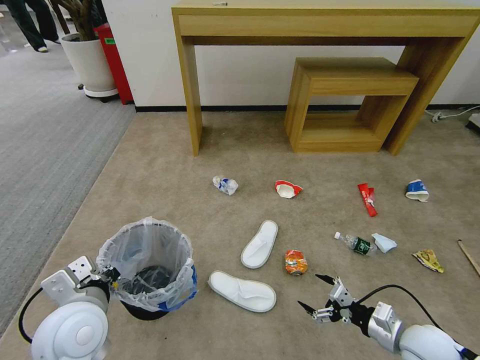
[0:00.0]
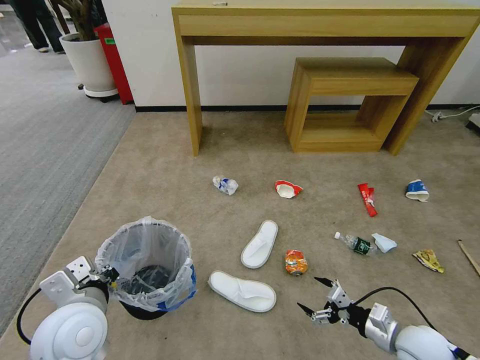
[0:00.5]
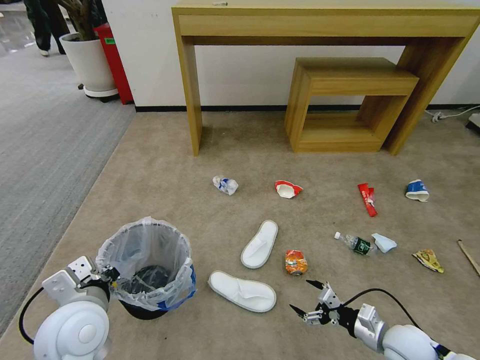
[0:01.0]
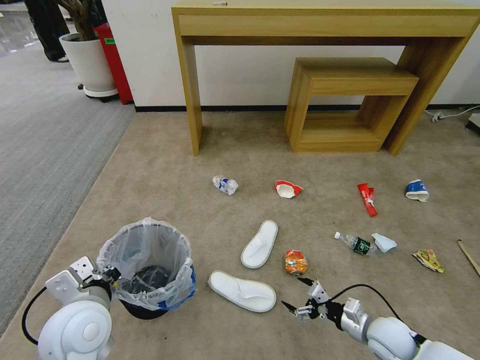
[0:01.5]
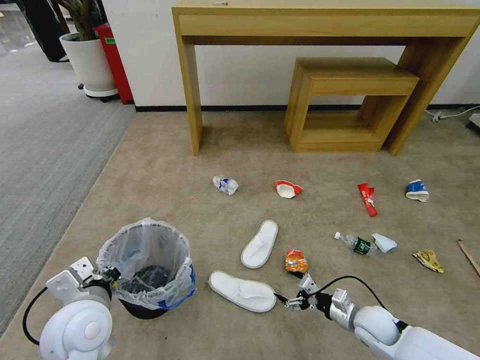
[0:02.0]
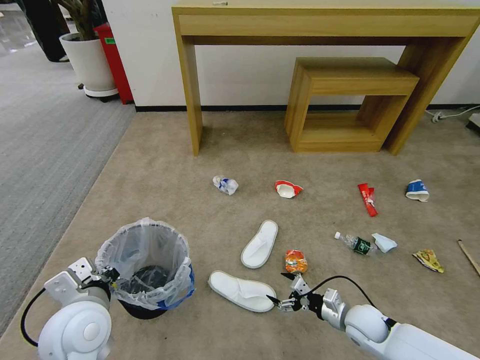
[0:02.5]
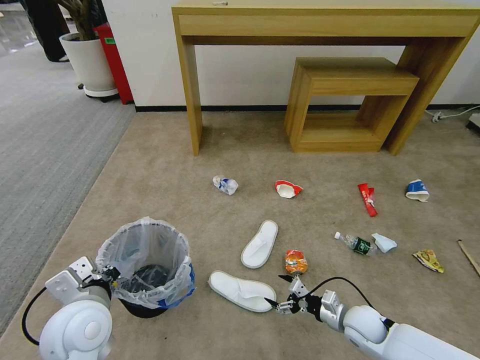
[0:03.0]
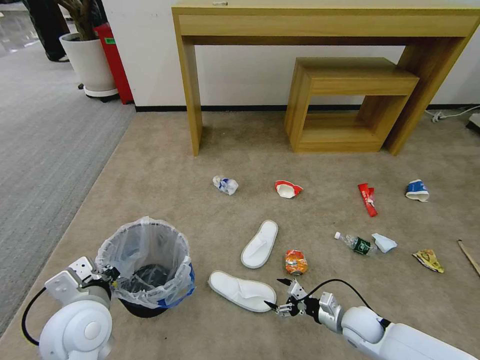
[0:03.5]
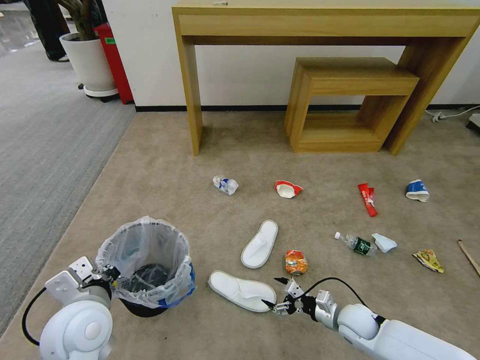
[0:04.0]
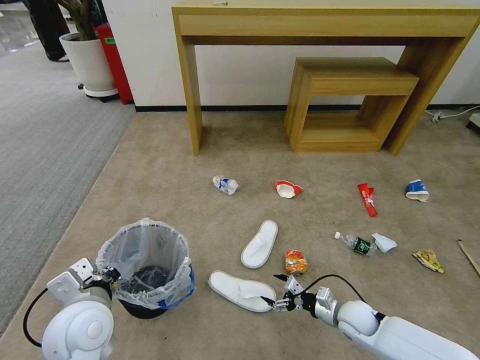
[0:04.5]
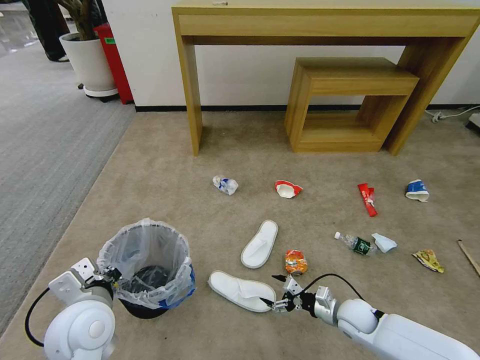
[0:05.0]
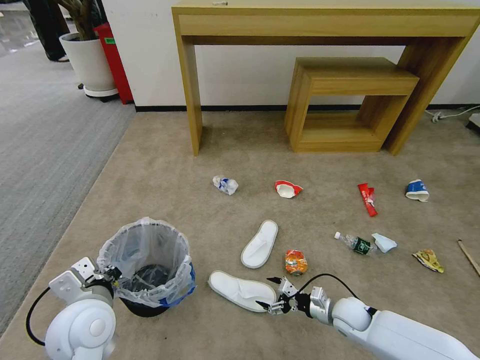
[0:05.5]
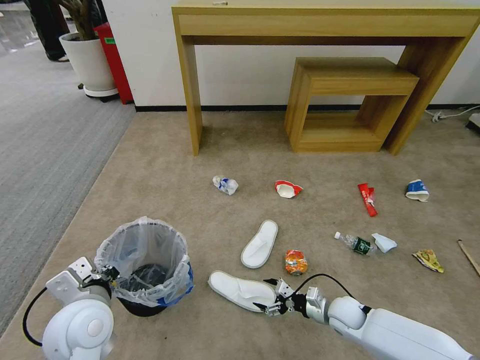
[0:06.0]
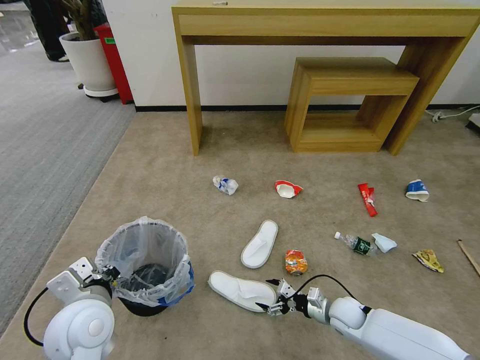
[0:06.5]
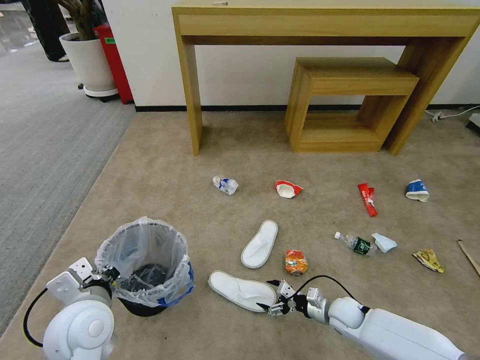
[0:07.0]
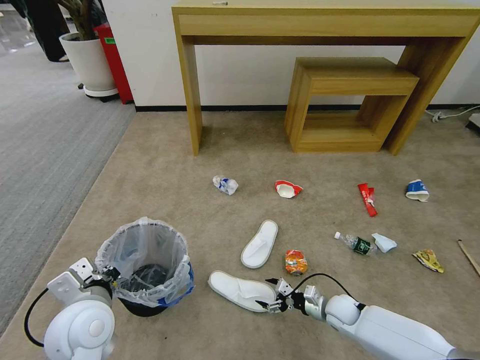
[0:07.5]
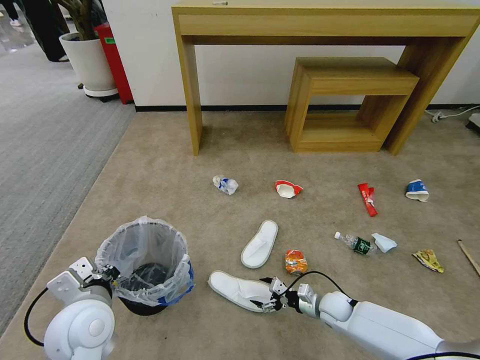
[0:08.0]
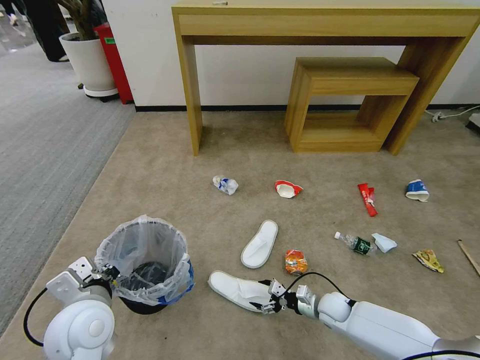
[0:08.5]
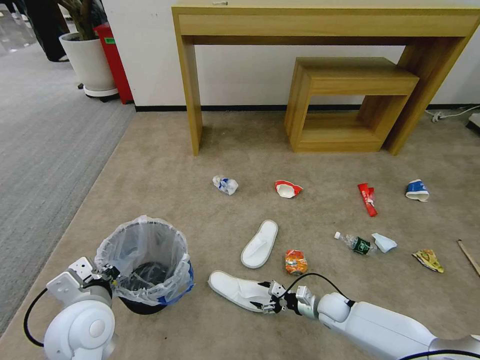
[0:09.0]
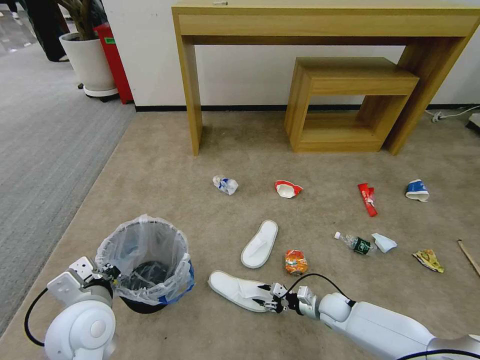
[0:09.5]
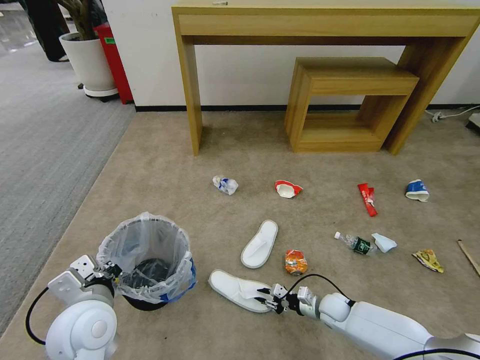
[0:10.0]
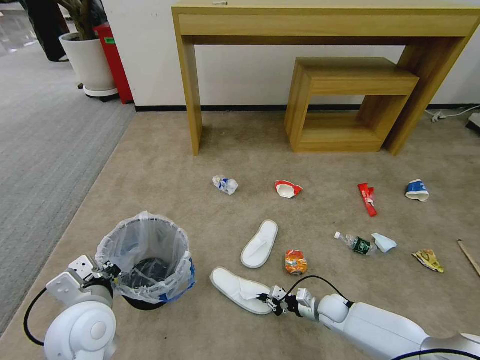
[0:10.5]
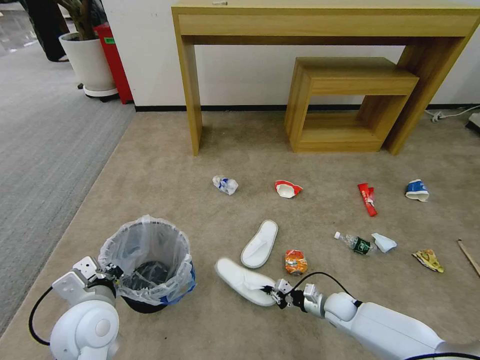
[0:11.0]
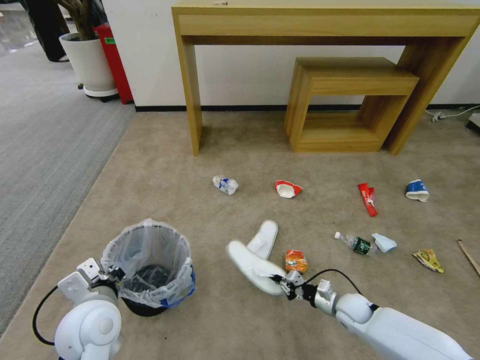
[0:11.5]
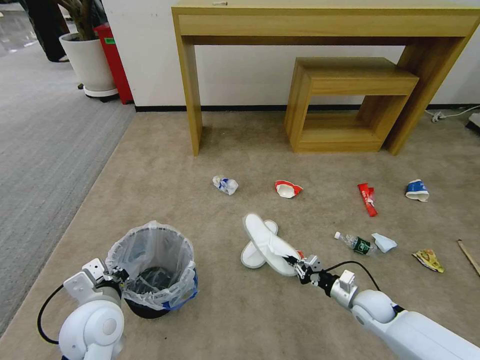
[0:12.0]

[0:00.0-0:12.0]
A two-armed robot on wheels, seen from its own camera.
Task of the whole recording: Pick up the trash bin and place the garbage on the floor into it.
0.0 to 2.0 s: The right gripper heads downward and forward, covering about 10 cm.
2.0 to 4.0 s: The grippers make only small movements.
4.0 to 6.0 s: The grippers stay close to where they were, moving slightly.
6.0 to 8.0 s: The grippers make only small movements.
8.0 to 10.0 s: The right gripper closes.
10.0 to 12.0 s: The right gripper travels upward and to the right by some 10 cm.

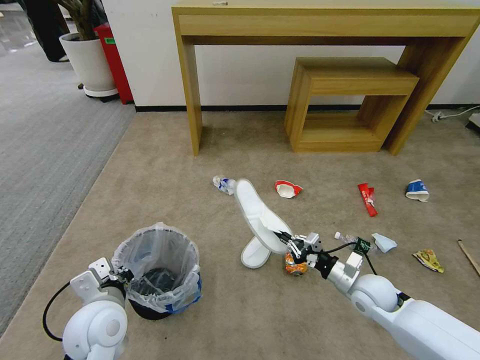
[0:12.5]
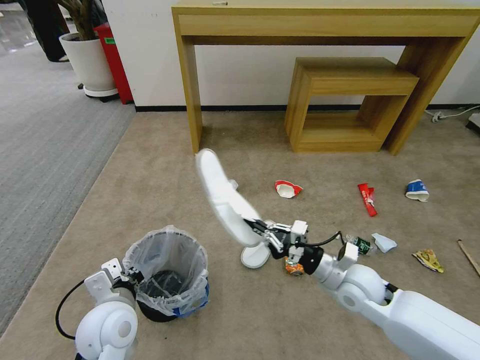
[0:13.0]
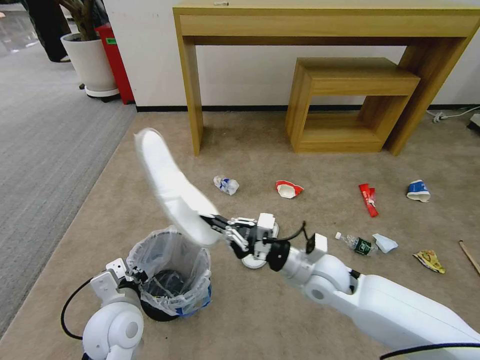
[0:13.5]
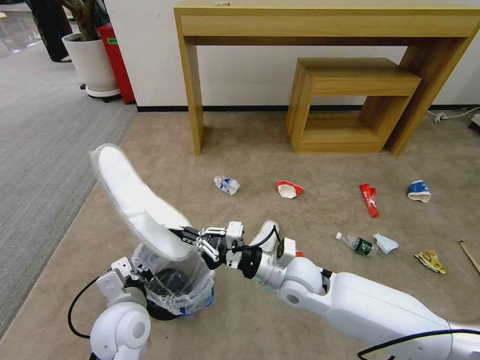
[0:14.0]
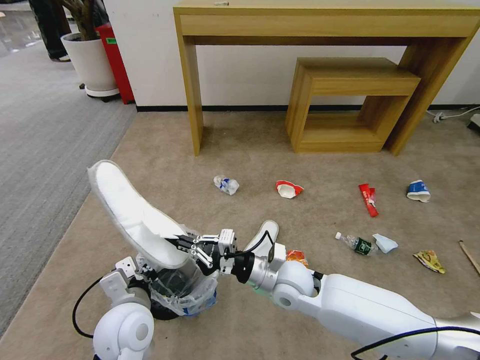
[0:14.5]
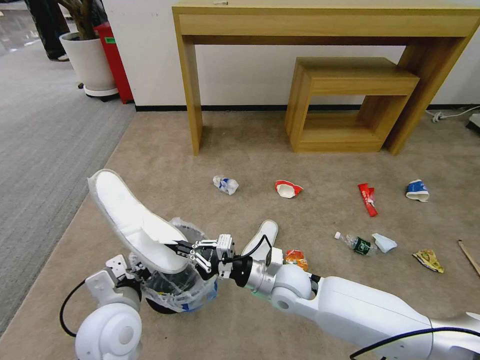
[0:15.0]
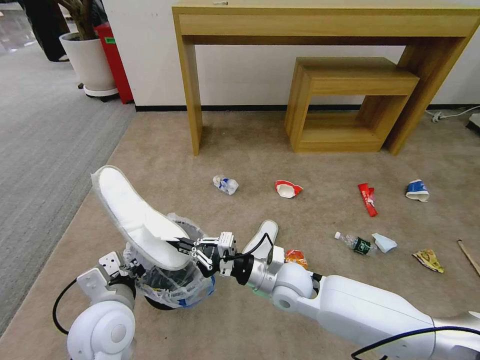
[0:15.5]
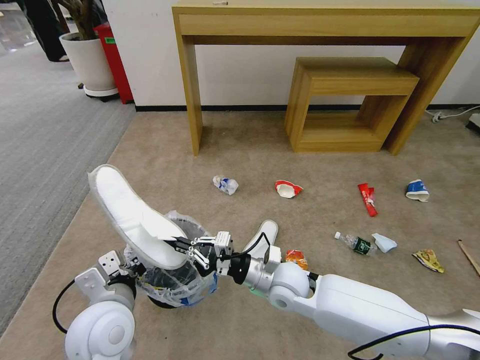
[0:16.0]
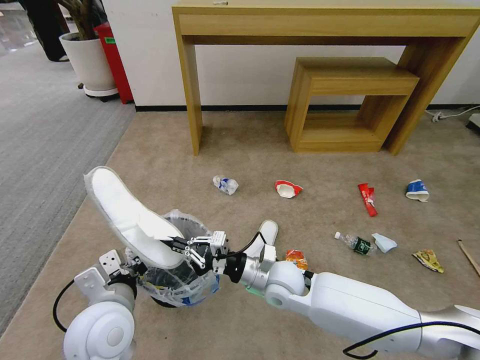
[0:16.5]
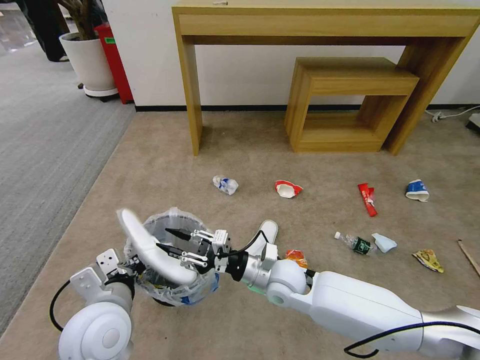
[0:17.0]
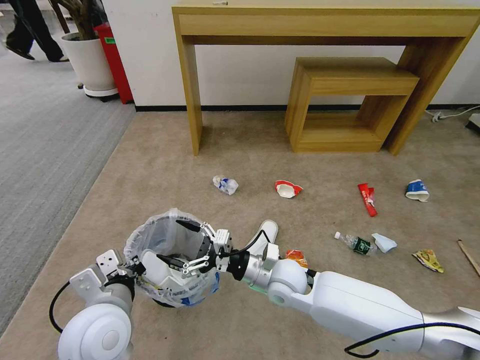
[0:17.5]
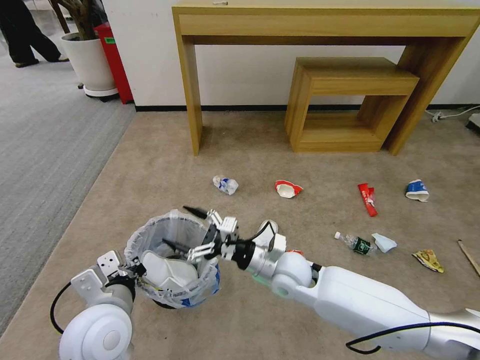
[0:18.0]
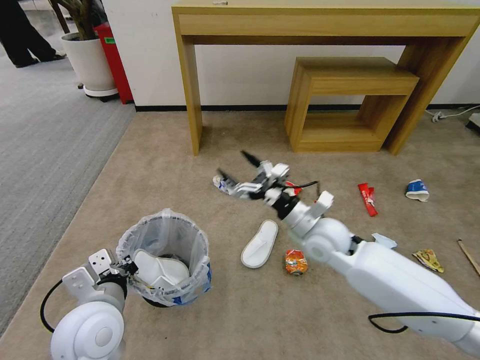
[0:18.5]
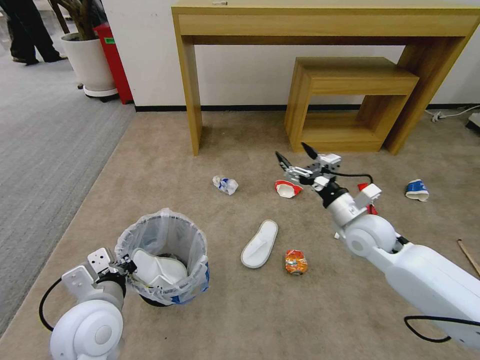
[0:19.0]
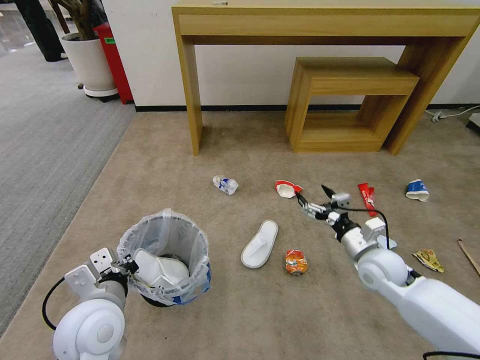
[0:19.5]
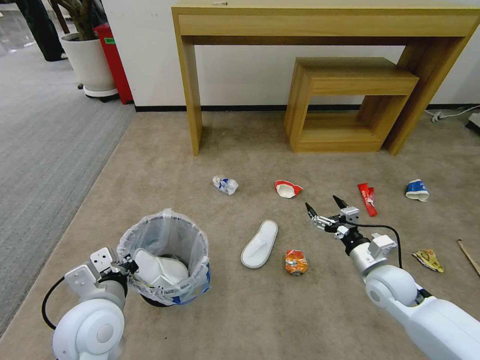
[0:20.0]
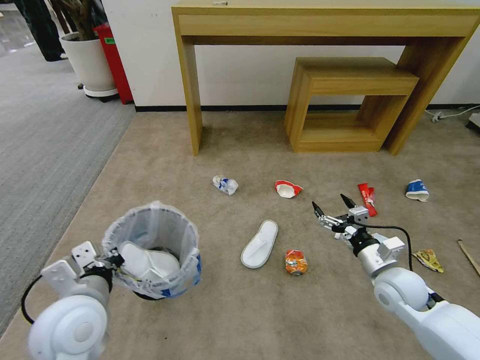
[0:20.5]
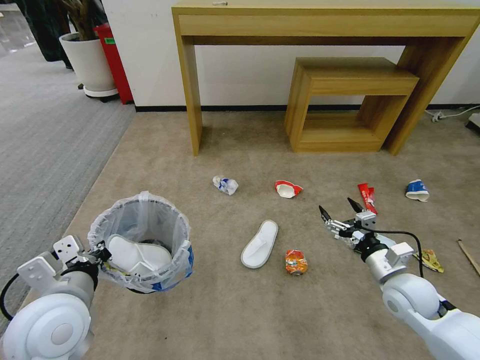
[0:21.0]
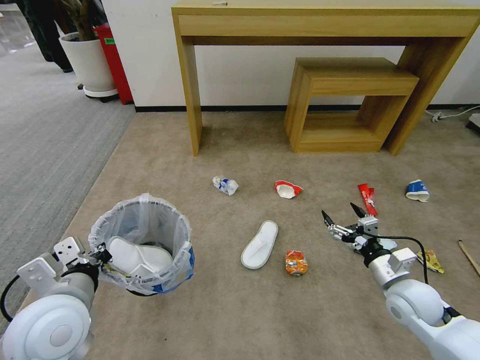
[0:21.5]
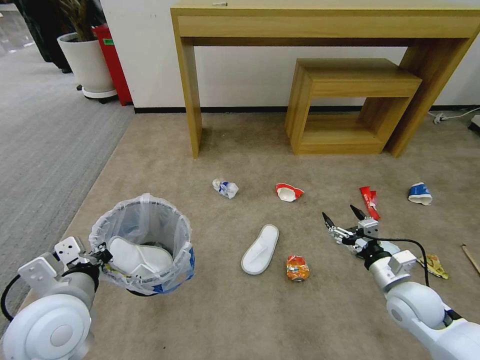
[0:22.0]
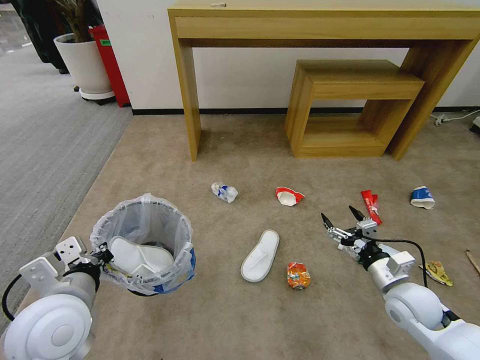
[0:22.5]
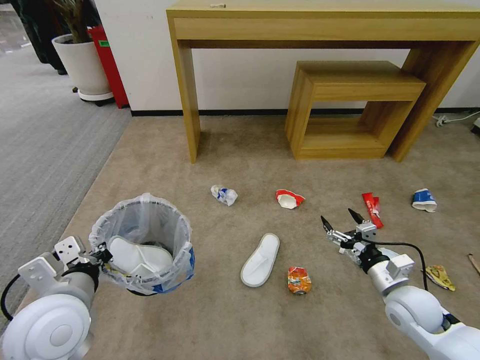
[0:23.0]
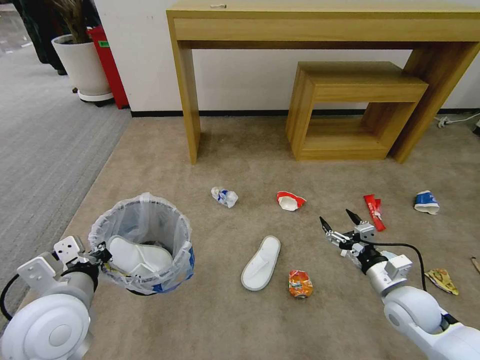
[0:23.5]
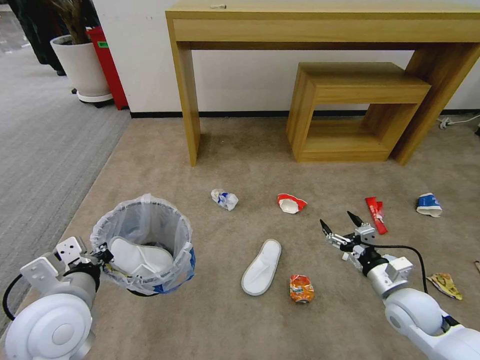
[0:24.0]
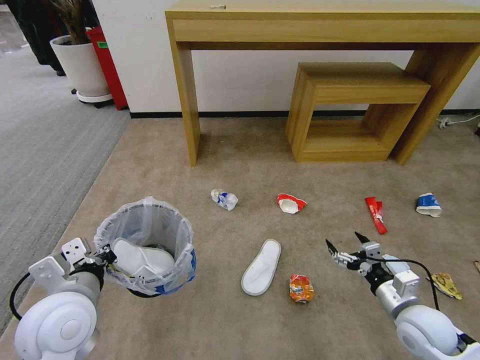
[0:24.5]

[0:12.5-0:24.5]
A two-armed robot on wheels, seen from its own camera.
Task of the whole recording: Pick up the trash bin and place the garbage on the floor into it.
12.5 to 14.5 s: The right gripper shifts approximately 20 cm to the left.
14.5 to 16.5 s: The left gripper ends up about 5 cm from where it was.
16.5 to 18.5 s: The right gripper goes about 15 cm to the right, upward and forward, and opens its fingers.
18.5 to 20.5 s: The right gripper is displaced to the right, backward and downward by approximately 20 cm.
20.5 to 22.5 s: The grippers stay close to where they were, moving slightly.
22.5 to 24.5 s: The grippers make only small movements.

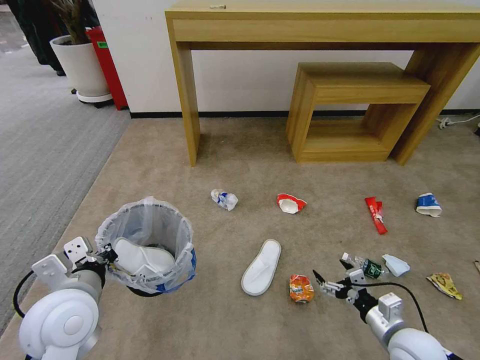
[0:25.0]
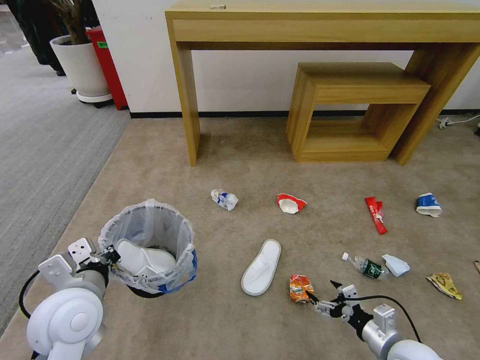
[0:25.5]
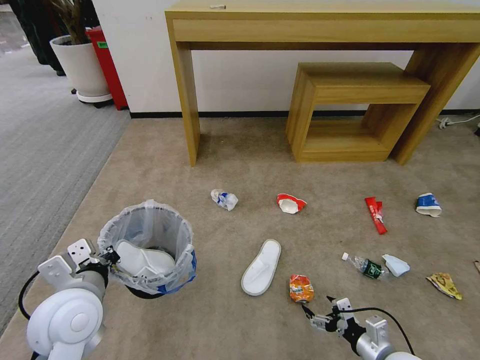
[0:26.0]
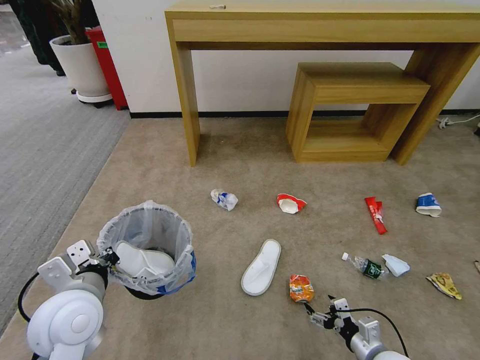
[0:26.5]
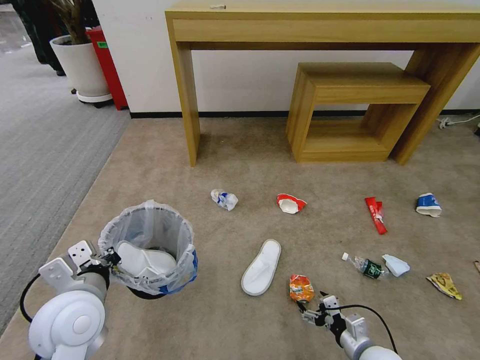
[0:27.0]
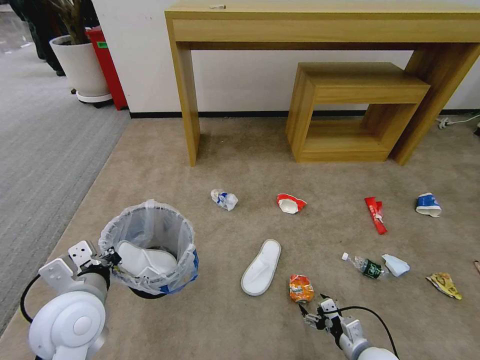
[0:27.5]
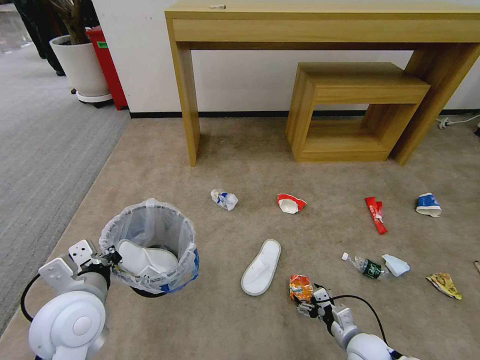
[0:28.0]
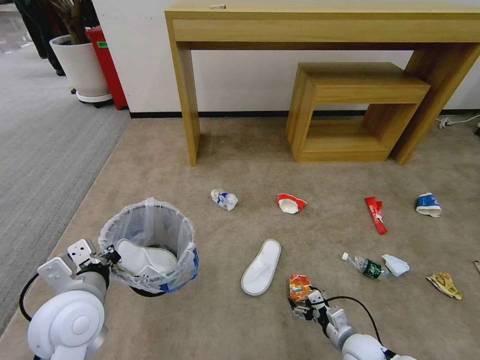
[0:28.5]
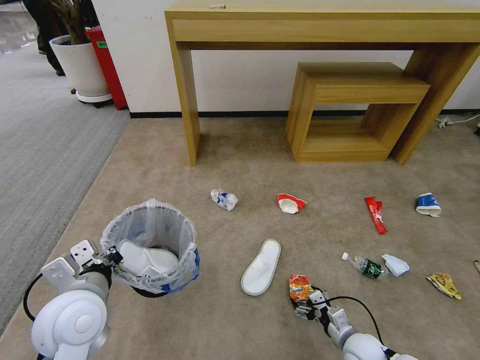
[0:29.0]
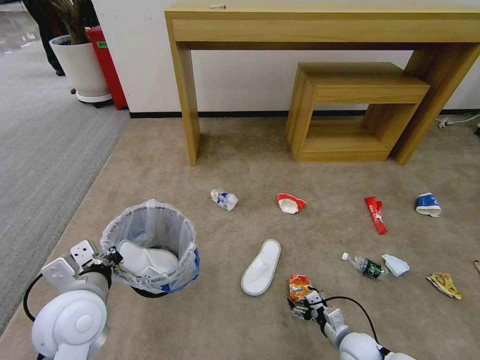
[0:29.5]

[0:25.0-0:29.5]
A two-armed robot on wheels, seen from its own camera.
Task of the whole recording: Pick up the trash bin and place the garbage on the floor into it.
25.0 to 27.0 s: The right gripper travels downward by roughly 10 cm.
27.0 to 29.5 s: The right gripper ends up approximately 5 cm from where it was.
